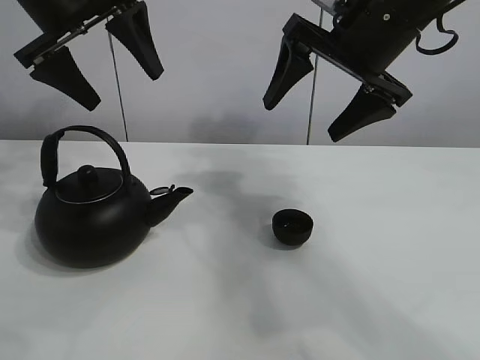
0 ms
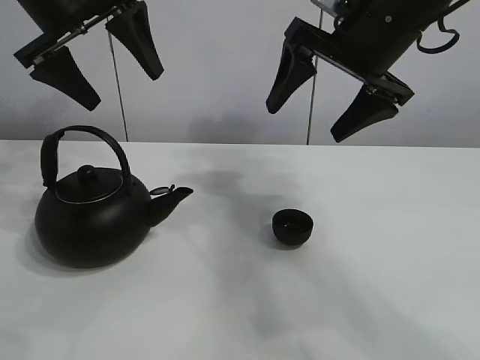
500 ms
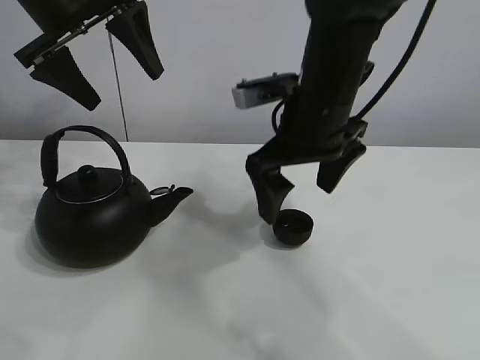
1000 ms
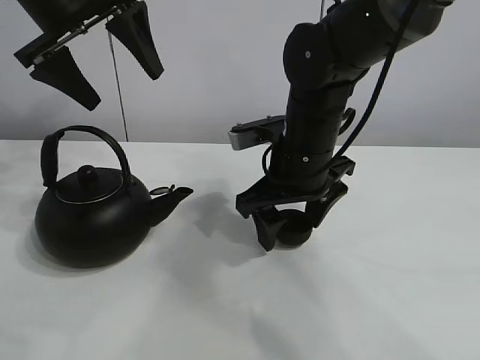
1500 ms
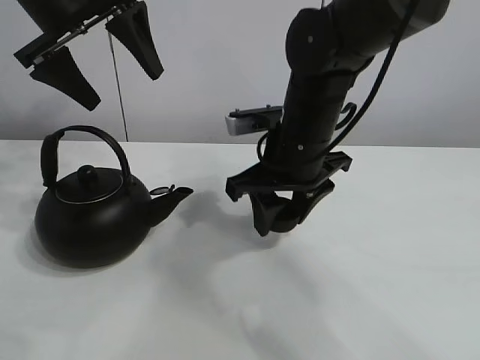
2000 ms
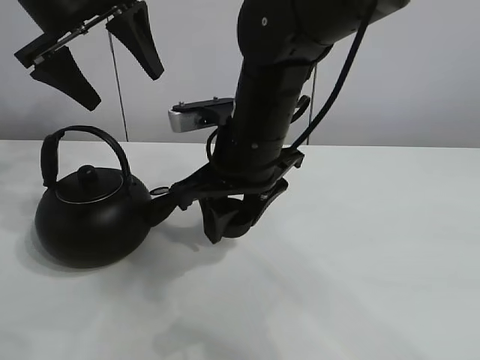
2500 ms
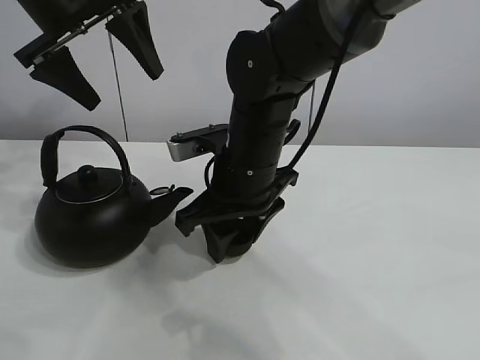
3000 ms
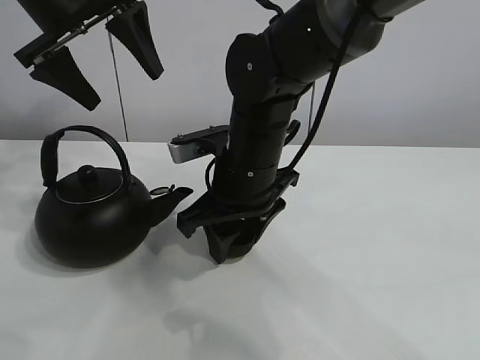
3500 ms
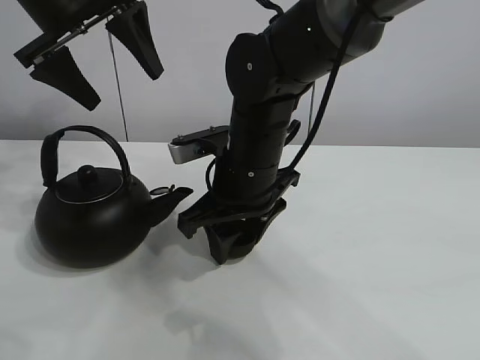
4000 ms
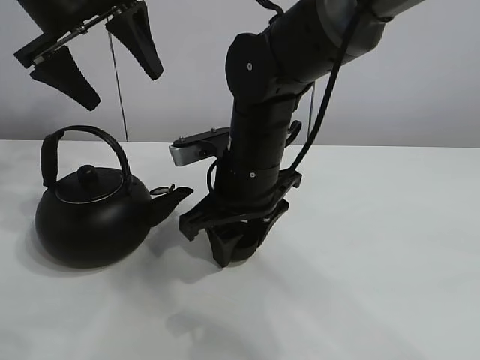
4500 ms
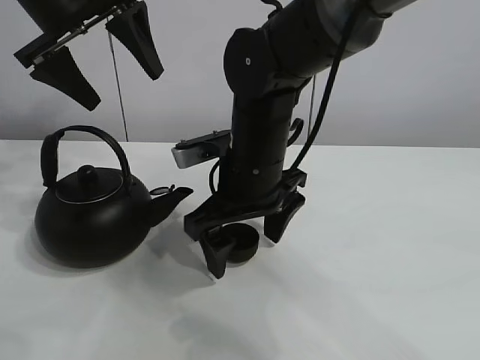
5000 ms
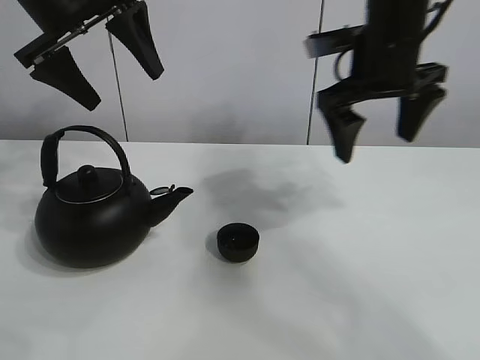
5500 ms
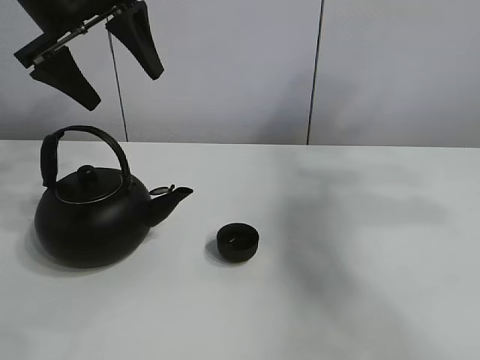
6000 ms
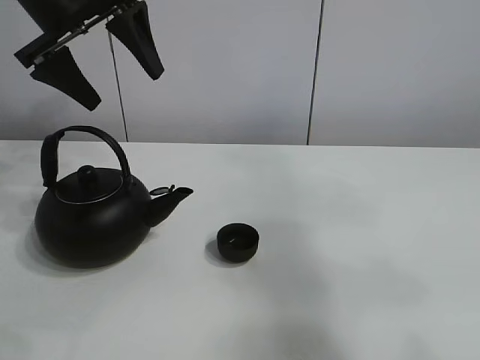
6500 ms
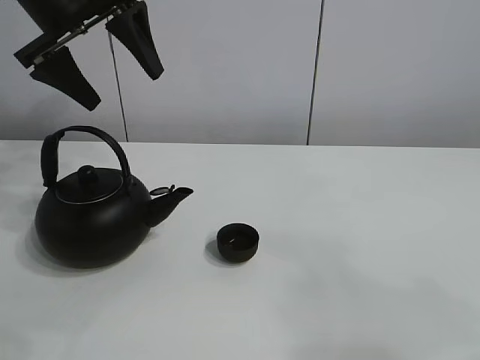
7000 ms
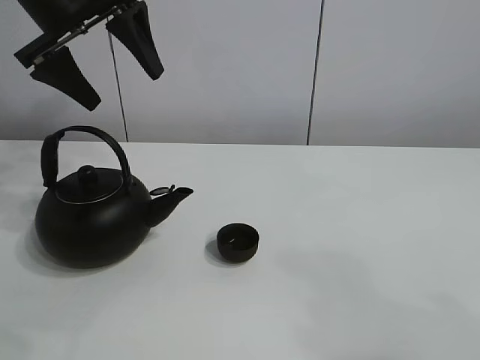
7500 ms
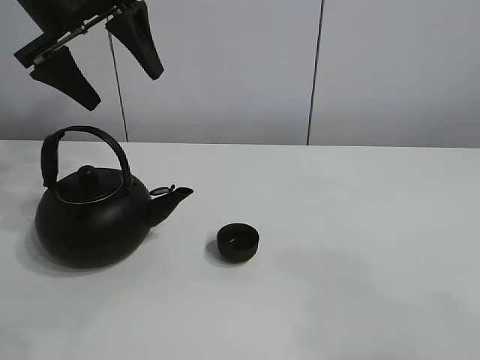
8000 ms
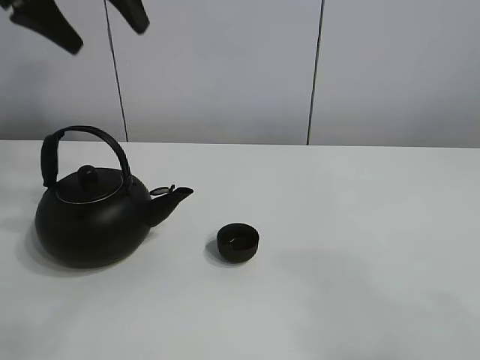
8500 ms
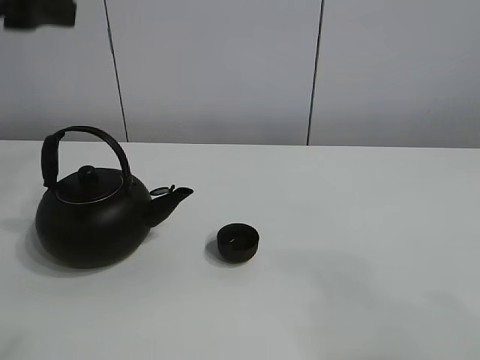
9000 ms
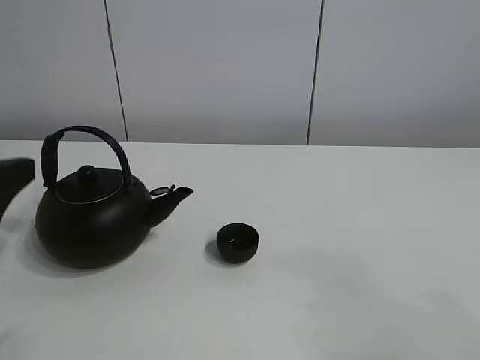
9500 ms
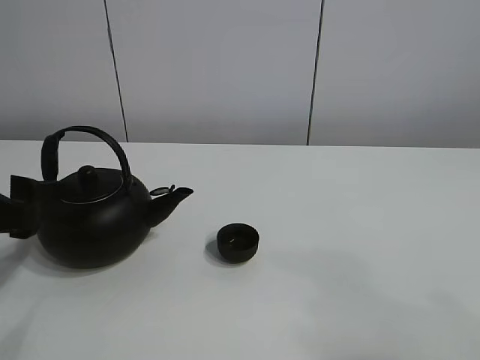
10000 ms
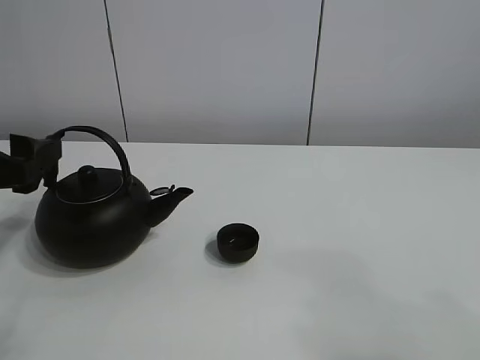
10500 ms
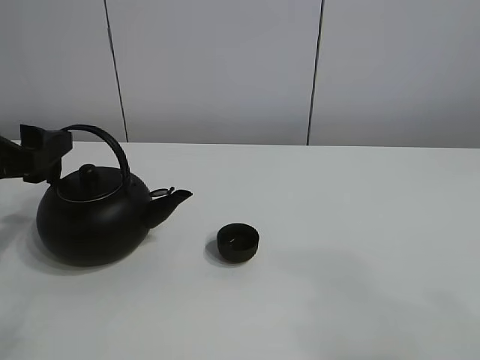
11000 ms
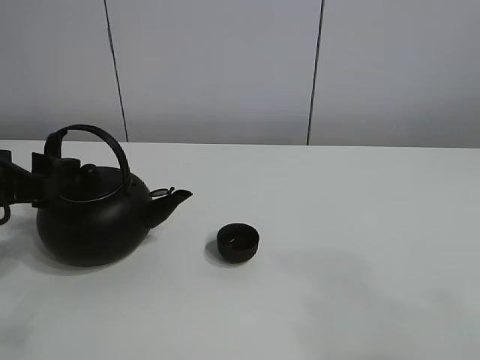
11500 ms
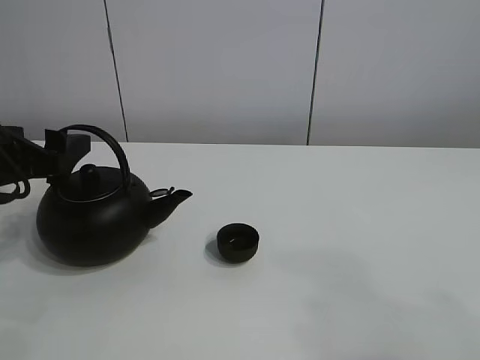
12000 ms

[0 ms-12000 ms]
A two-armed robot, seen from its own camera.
Task of the whole recording: pour tea into the teacup.
Step, 0 ms to 1500 ms: Pick up the teacup with the right gripper.
Step, 2000 ms to 4500 ms: Place the teacup in the center of view with the right gripper.
2000 ms to 4000 ms: The right gripper shifts about 5 cm to the left.
4000 ms to 6000 ms: The right gripper heads to the right and upward, covering about 40 cm, and opens its fingers.
6000 ms to 8000 ms: The right gripper moves backward, approximately 35 cm.
8000 ms to 10000 ms: The left gripper moves backward and downward, some 25 cm.
10000 ms to 12000 ms: The left gripper moves forward, some 10 cm.

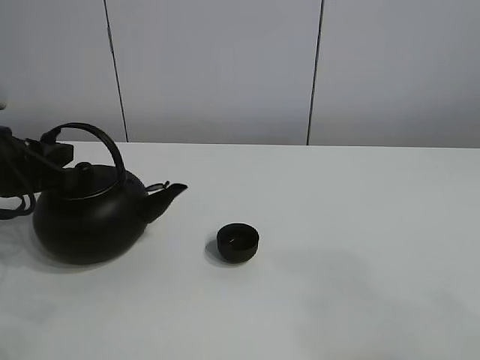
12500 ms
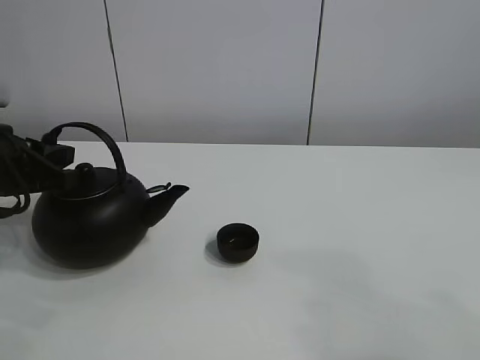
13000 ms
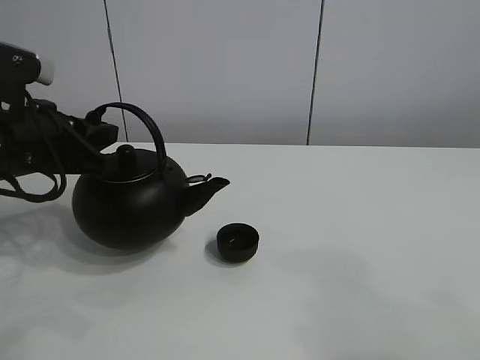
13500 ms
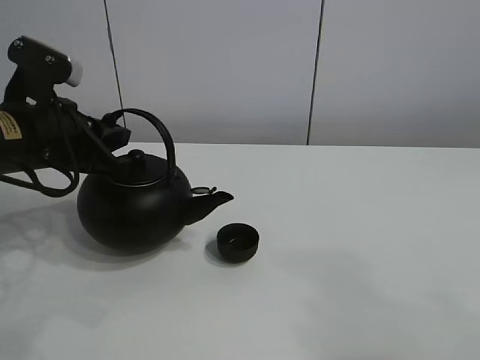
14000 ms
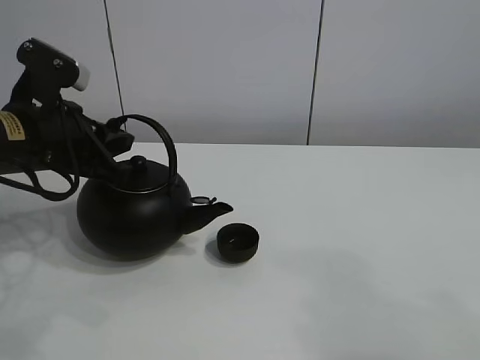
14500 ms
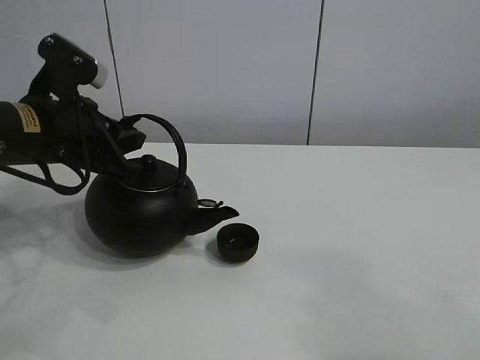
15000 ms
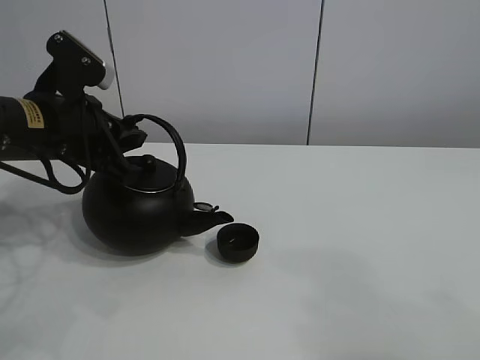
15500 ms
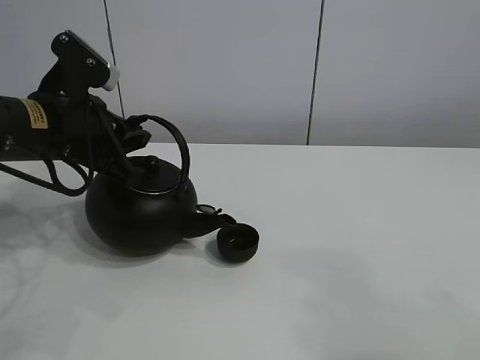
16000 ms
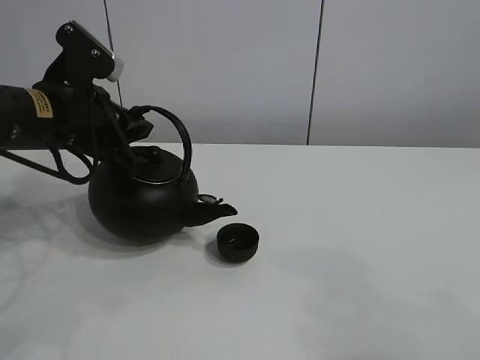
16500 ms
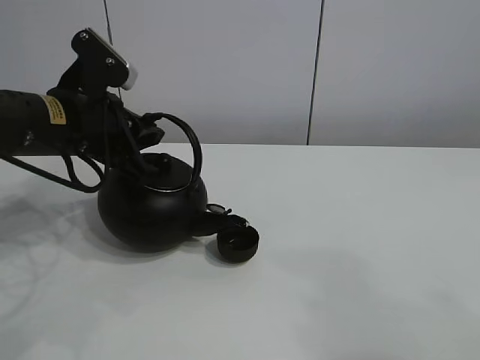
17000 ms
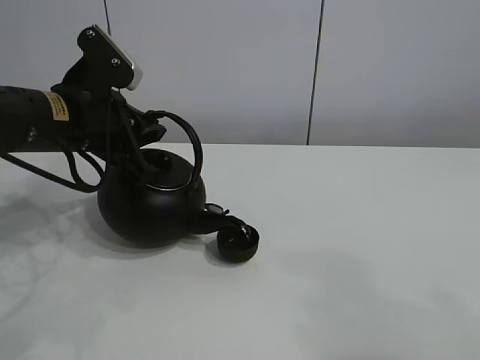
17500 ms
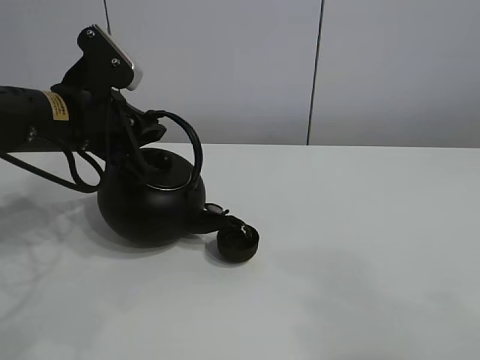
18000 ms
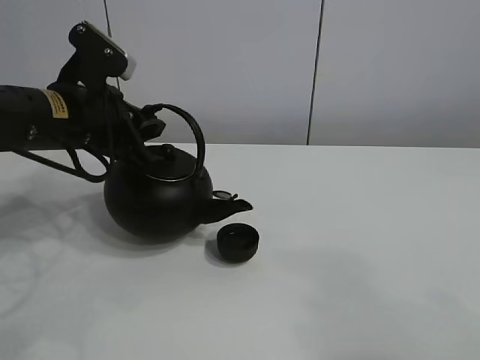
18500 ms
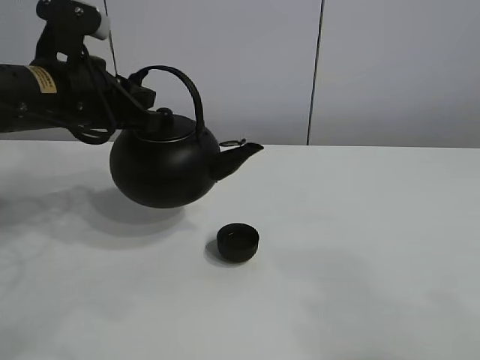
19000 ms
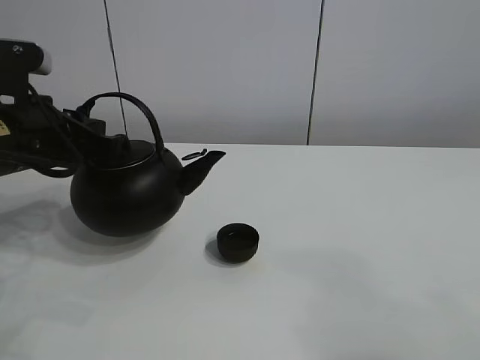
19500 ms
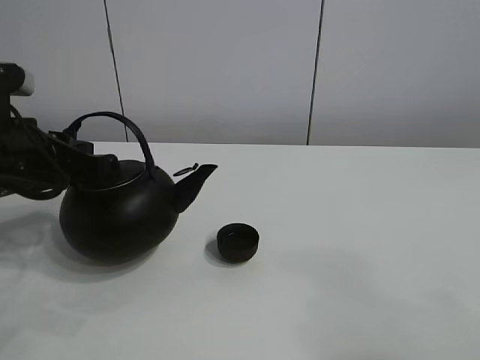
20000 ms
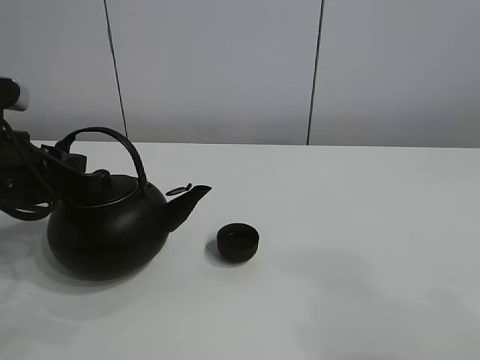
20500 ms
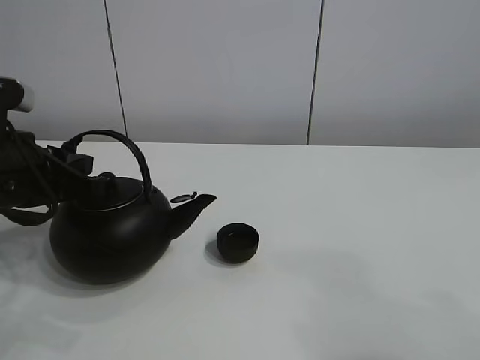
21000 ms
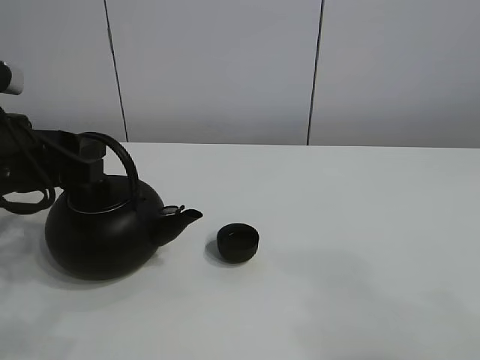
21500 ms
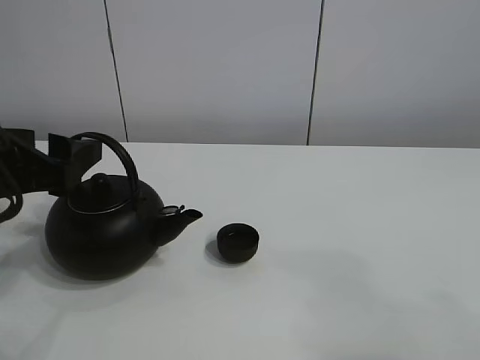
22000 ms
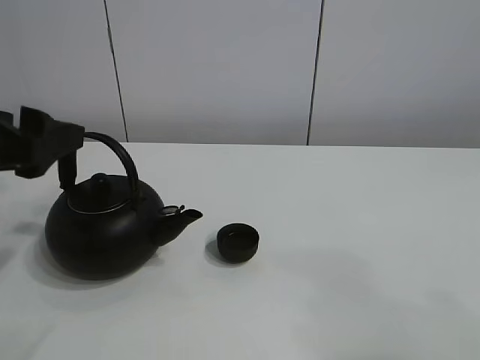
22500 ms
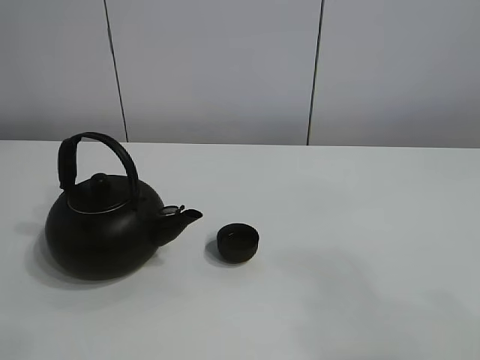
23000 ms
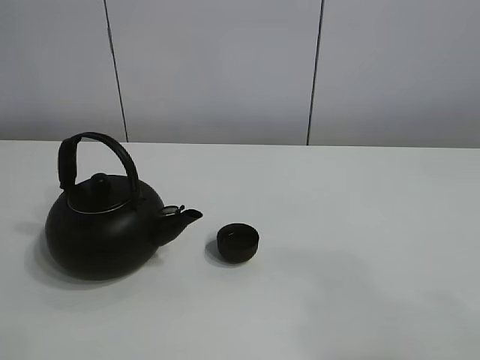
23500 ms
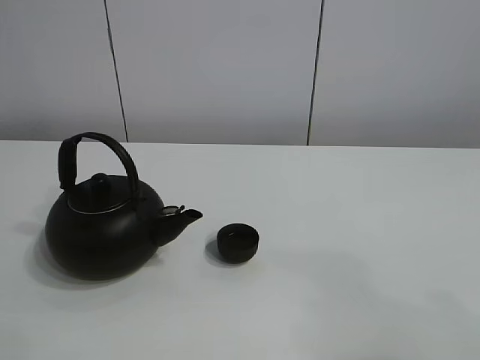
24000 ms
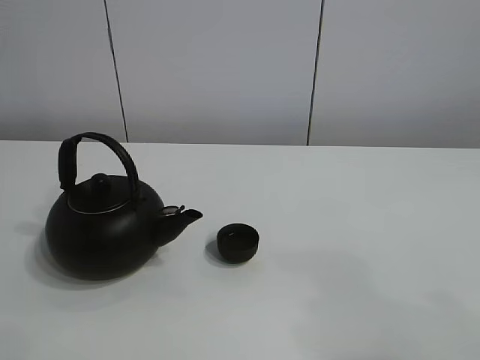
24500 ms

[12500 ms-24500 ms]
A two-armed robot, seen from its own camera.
Task of the whole recording: pour tea into the teacup.
Step, 13500 ms to 18500 ms: Pour tea into the teacup with the left gripper.
12500 ms to 14500 ms: The left gripper travels to the right by approximately 5 cm.
14500 ms to 18500 ms: The grippers make only small movements.
18500 ms to 20500 ms: The left gripper heads backward and to the left, covering some 10 cm.
20500 ms to 22500 ms: The left gripper heads upward and backward, covering roughly 10 cm, and opens.
22500 ms to 24500 ms: The left gripper is displaced backward and upward by about 25 cm.

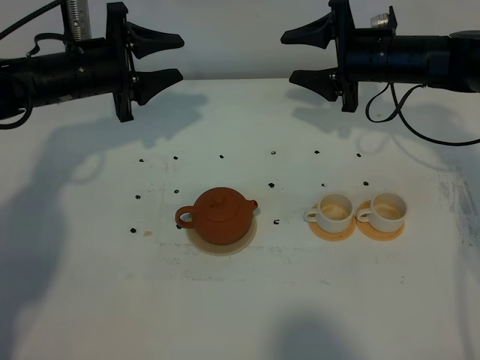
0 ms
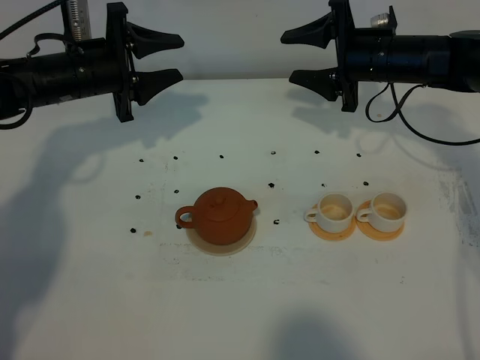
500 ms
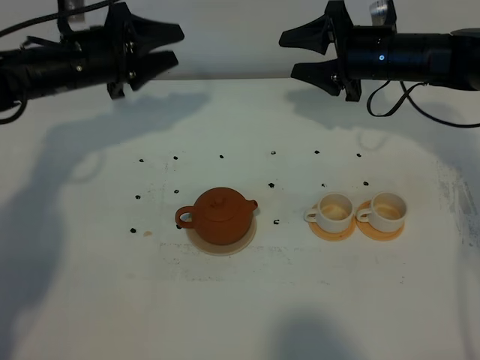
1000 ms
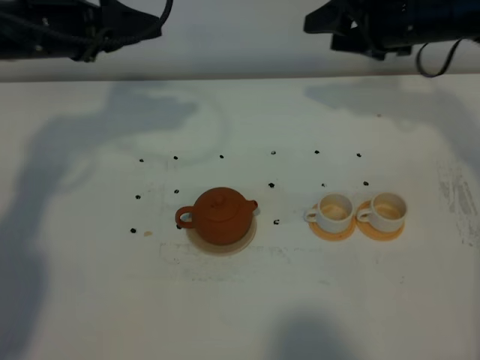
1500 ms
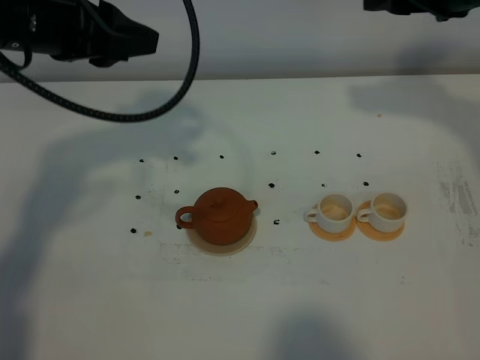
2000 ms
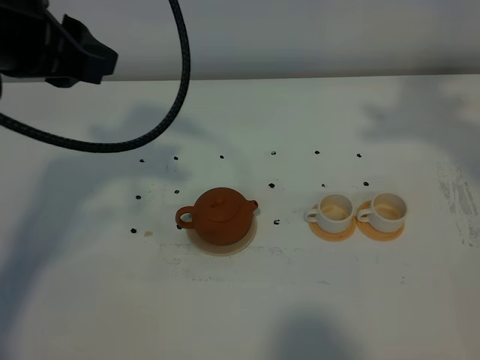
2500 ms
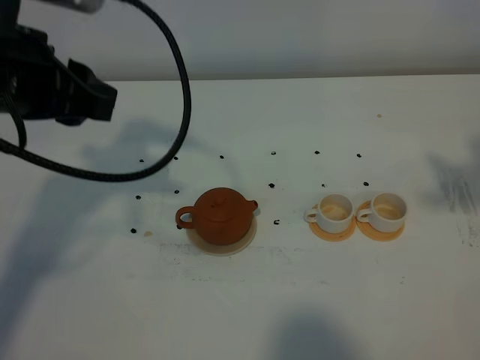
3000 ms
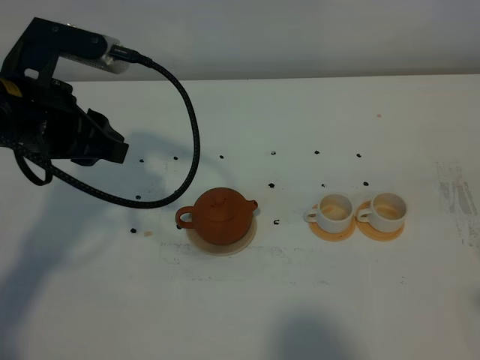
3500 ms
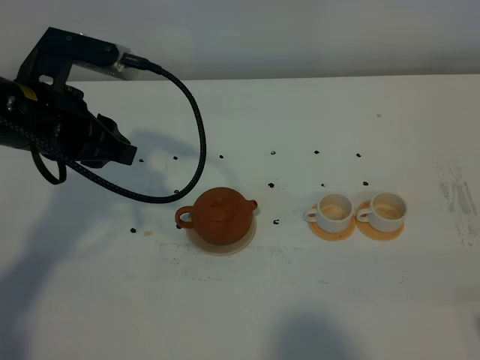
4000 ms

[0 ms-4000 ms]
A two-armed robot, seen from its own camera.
Task of the whole recording: grasp the brown teapot and pour the tea into the two white teacups one by one, put the brown teapot back in its original place.
0 ms to 2000 ms: The two grippers go some 20 cm upward and backward.
2000 ms to 4000 ms: The right gripper heads backward, covering approximately 35 cm, while the left gripper goes approximately 10 cm downward.
